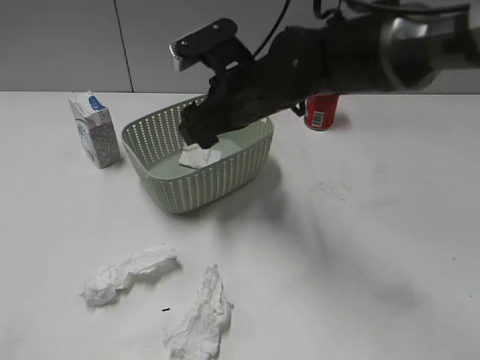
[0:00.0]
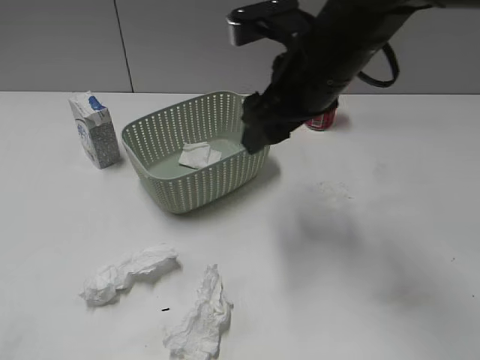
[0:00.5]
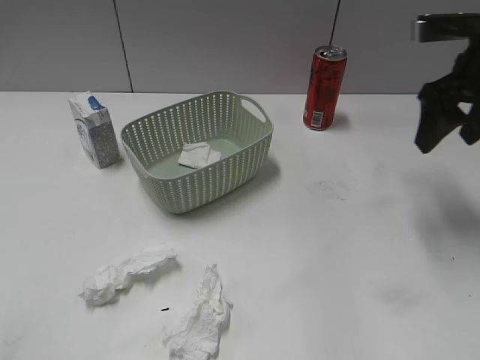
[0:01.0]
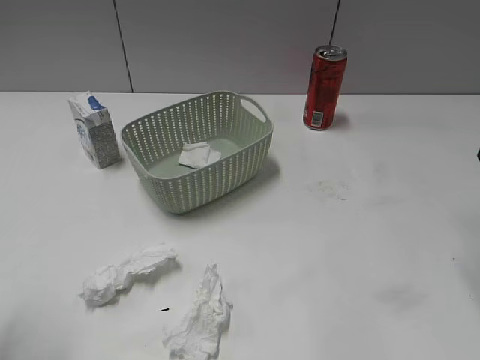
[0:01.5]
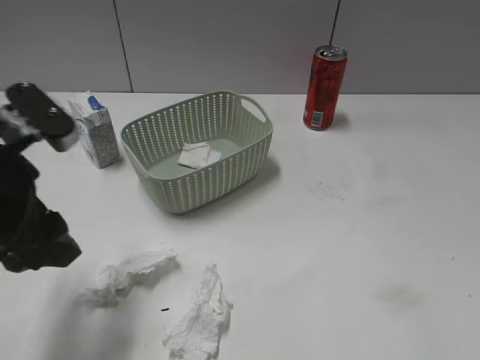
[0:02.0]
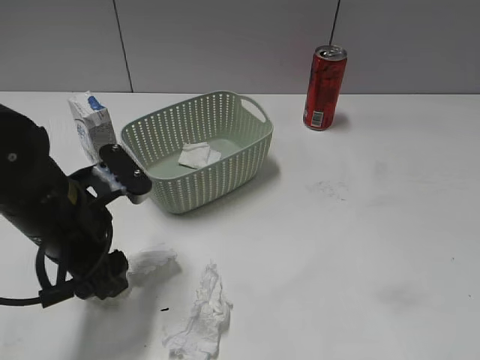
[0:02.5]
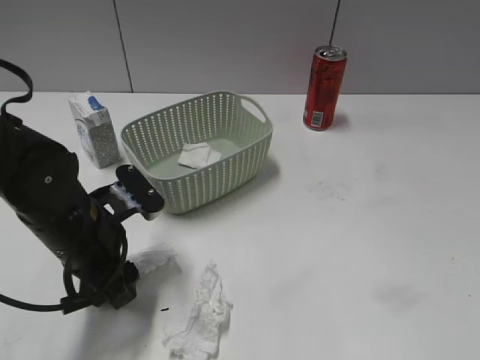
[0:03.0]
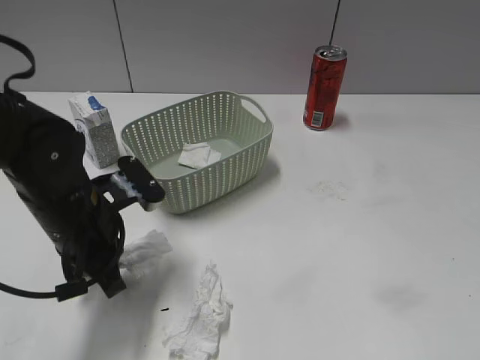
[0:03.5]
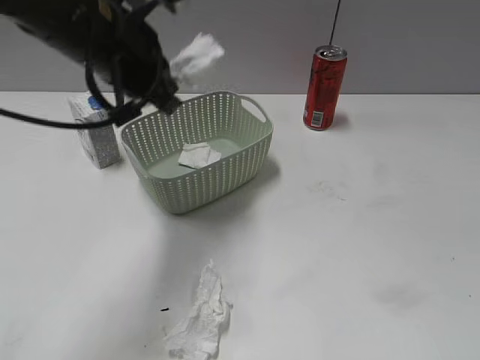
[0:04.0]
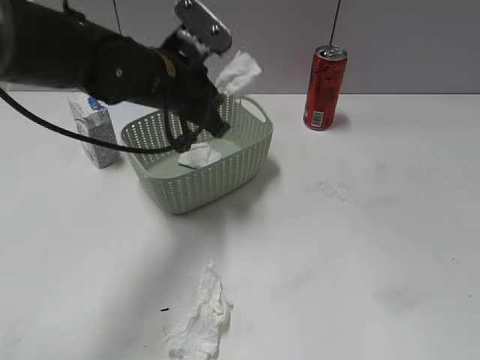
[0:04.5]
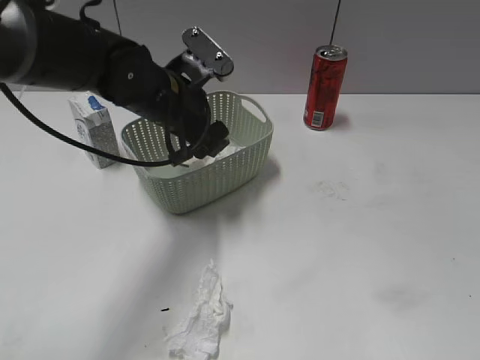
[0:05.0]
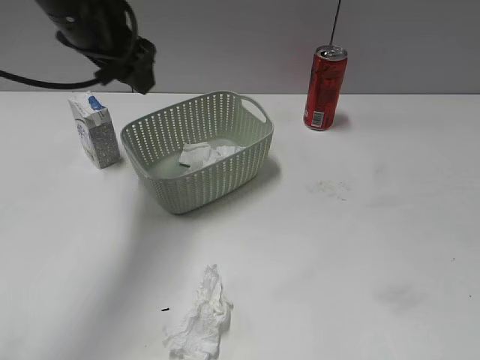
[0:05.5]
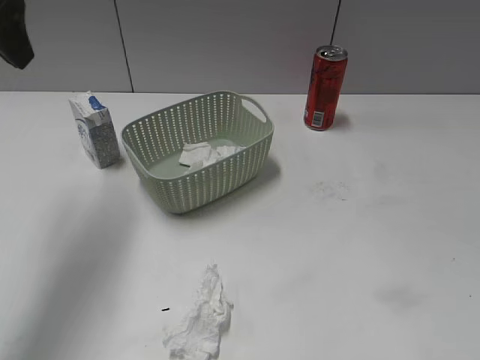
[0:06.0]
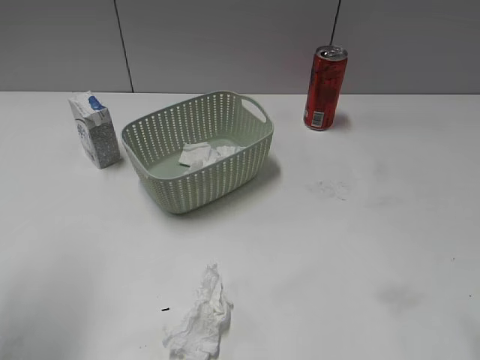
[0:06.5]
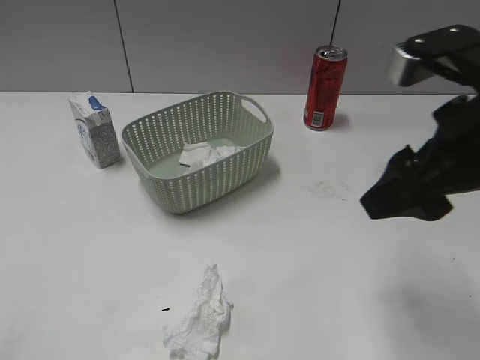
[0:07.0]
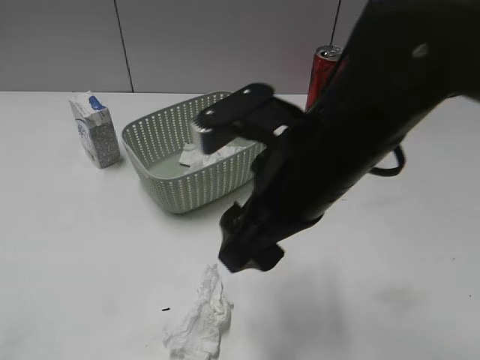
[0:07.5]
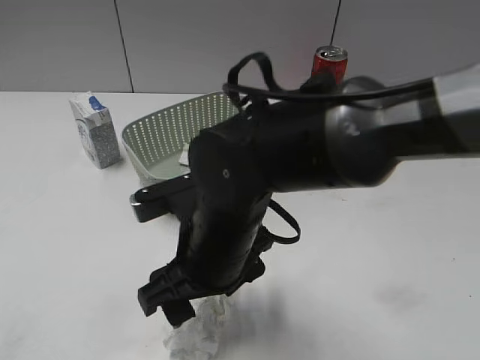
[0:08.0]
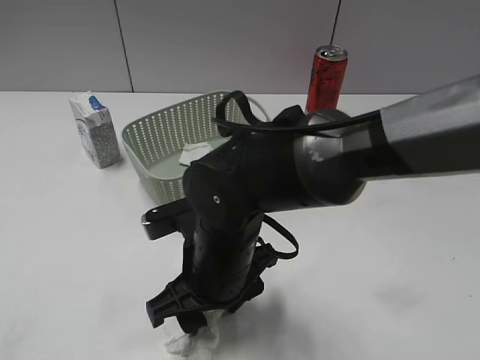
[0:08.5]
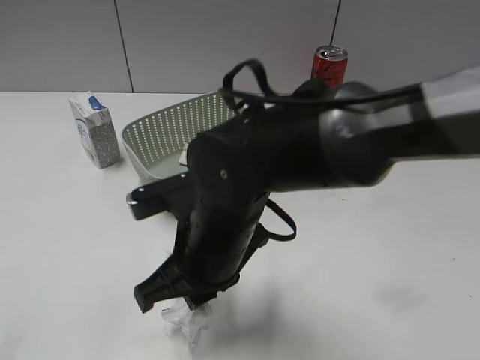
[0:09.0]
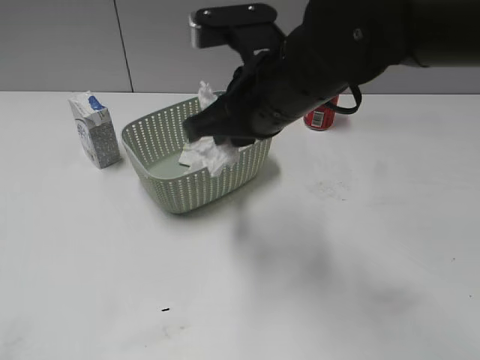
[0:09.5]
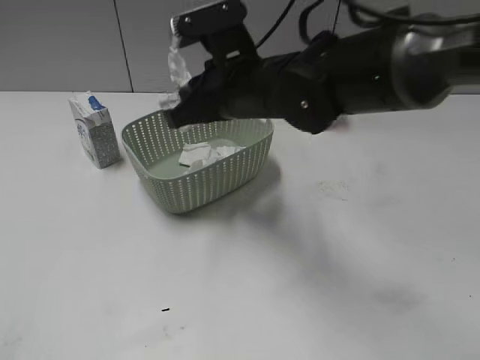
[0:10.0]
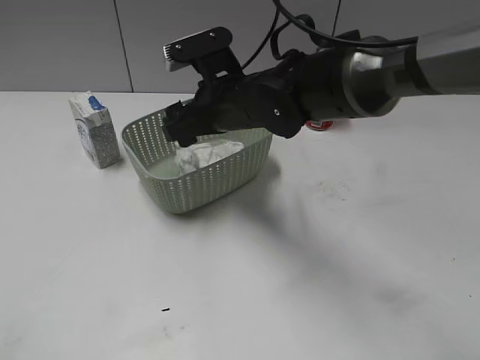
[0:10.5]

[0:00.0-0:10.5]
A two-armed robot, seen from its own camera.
Step, 0:00.0 to 0:03.5: Grasp the waste paper with left gripper.
Step, 0:04.0 to 0:05.0: Place the waste paper in the basket with left gripper.
Step, 0:05.5 to 0:08.5: Grasp the waste paper with right gripper.
0:00.0 to 0:02.0: The right gripper shifts about 35 cm to the right, backward and upward. The left gripper goes about 25 cm forward and to the right.
0:02.0 to 0:04.0: The left gripper goes approximately 15 cm forward and to the right, travels downward and back again, some 10 cm each way, and closes. Meanwhile the right gripper goes some 10 cm backward.
0:04.0 to 0:06.5: The left gripper goes roughly 20 cm to the left, backward and upward, and opens its fingers. Meanwhile the right gripper shifts approximately 10 cm forward.
0:06.5 to 0:08.5: The left gripper shifts roughly 20 cm backward. Meanwhile the right gripper goes some 35 cm to the left and downward.
0:08.5 to 0:10.5: The right gripper goes about 15 cm forward, and closes and opens again.

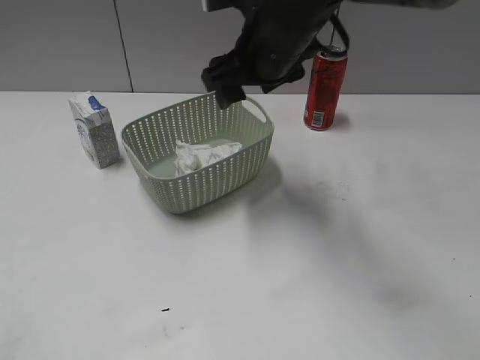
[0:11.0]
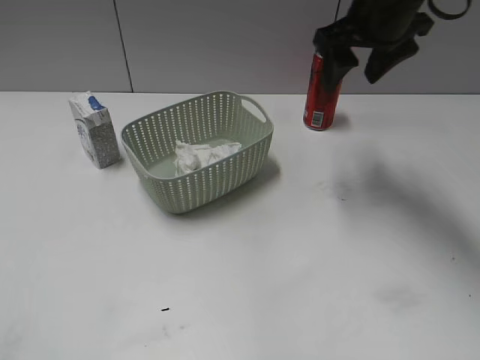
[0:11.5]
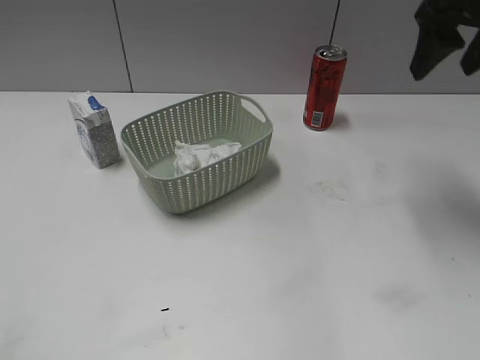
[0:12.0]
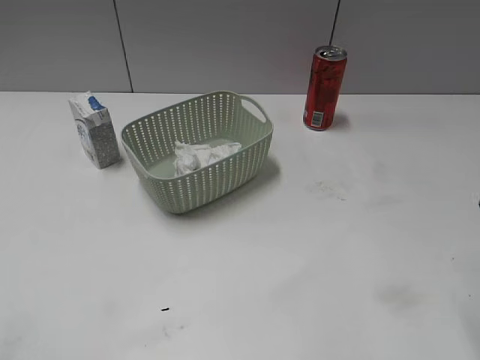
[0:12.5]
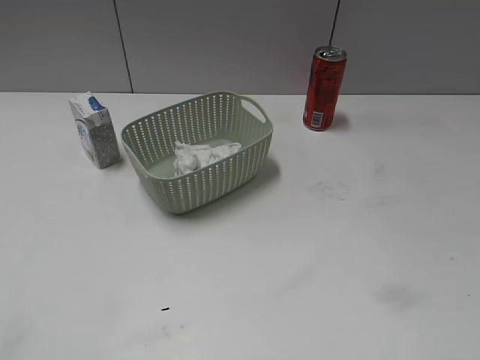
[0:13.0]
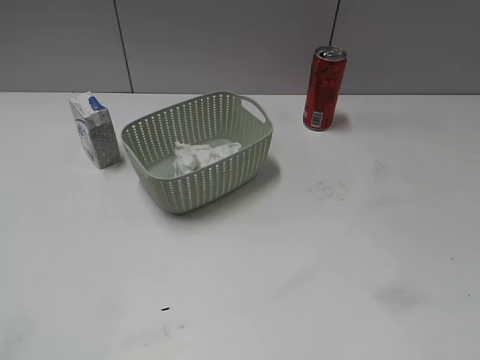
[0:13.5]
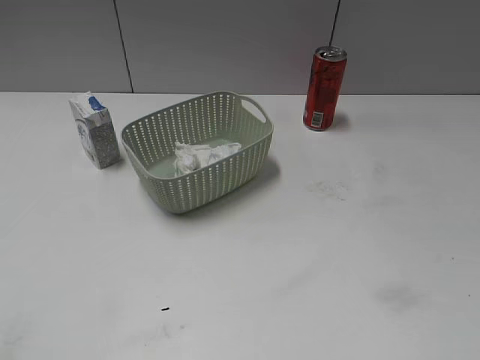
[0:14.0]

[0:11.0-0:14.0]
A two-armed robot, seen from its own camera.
0:11.0 to 0:12.5: The right gripper is displaced to the right and backward by about 30 cm.

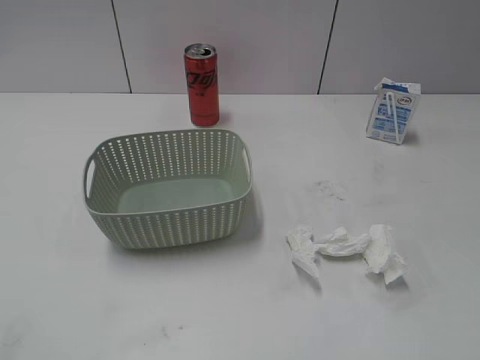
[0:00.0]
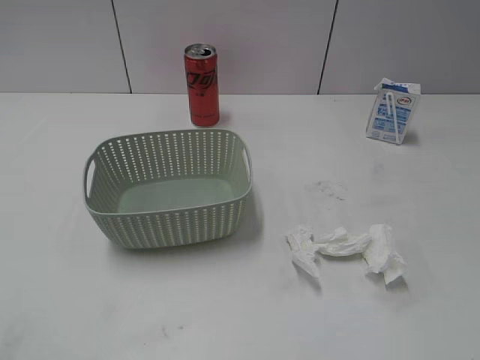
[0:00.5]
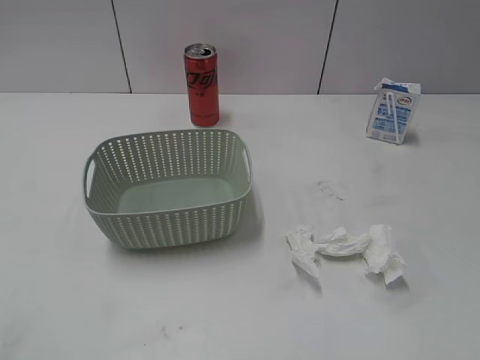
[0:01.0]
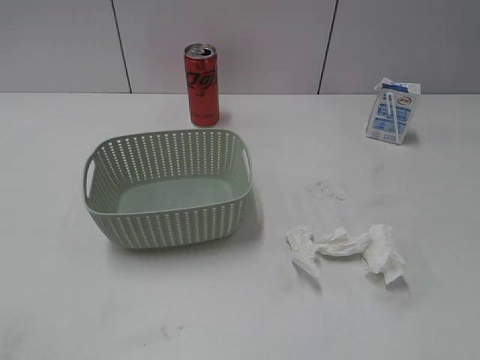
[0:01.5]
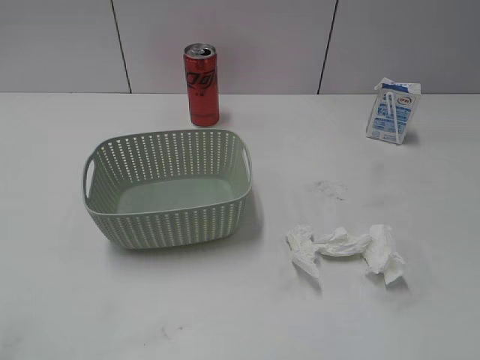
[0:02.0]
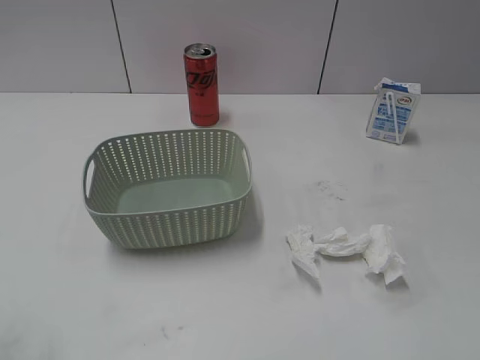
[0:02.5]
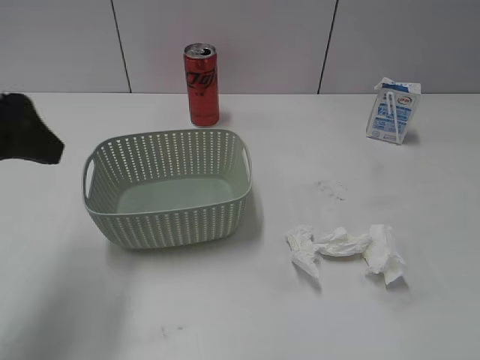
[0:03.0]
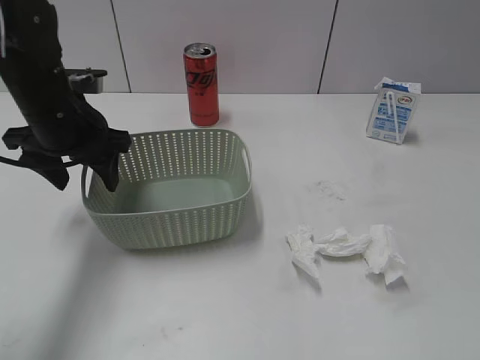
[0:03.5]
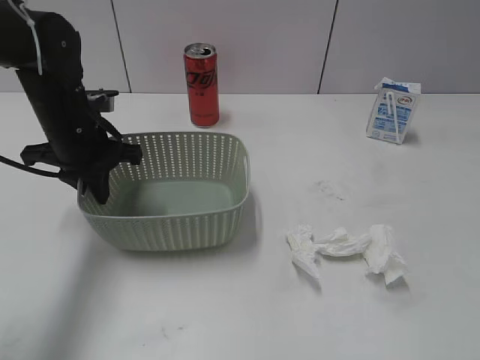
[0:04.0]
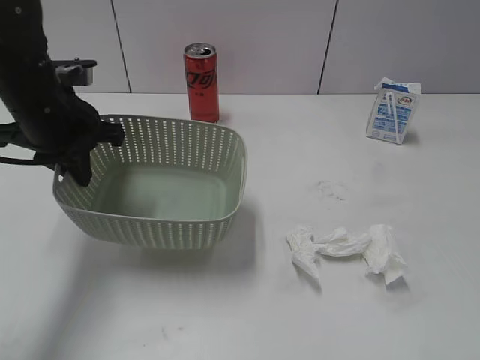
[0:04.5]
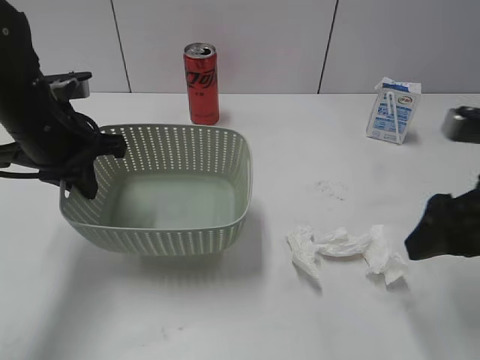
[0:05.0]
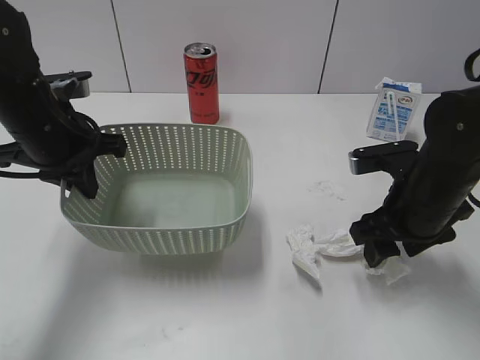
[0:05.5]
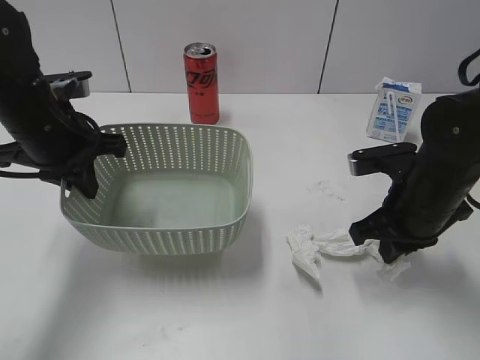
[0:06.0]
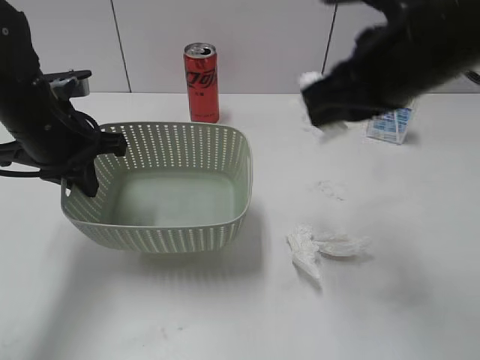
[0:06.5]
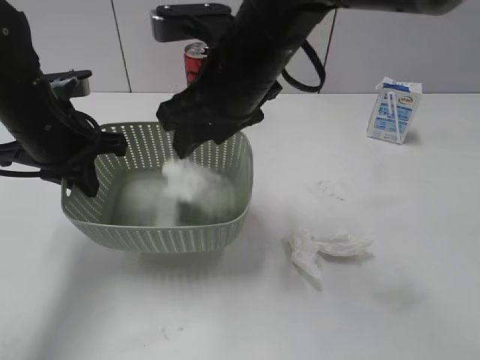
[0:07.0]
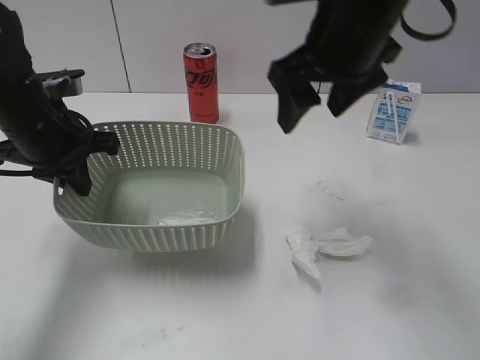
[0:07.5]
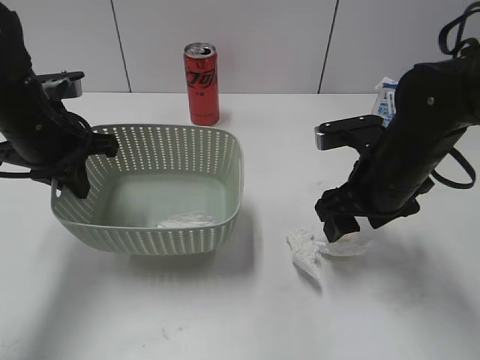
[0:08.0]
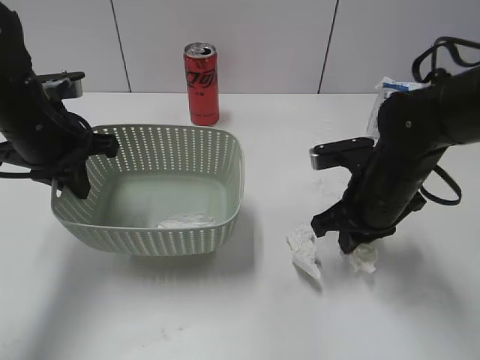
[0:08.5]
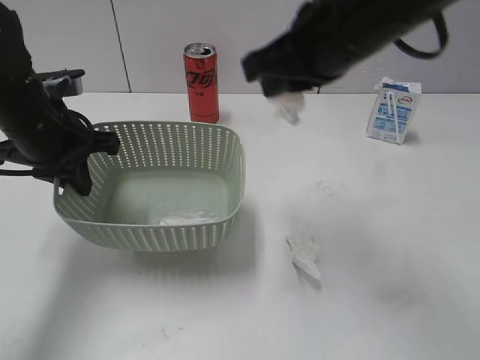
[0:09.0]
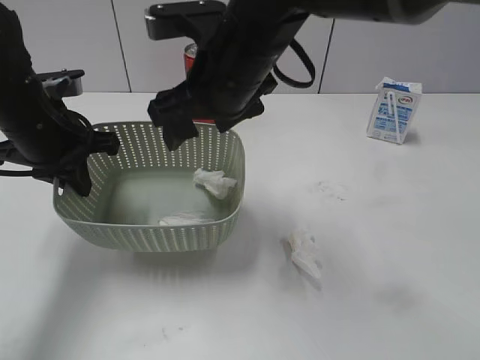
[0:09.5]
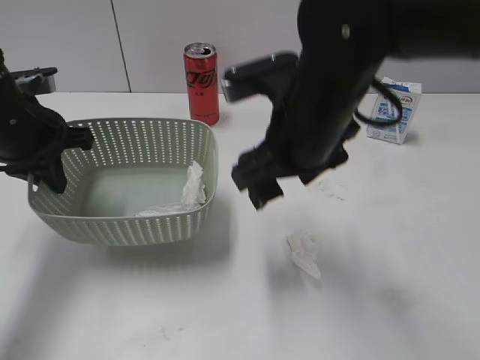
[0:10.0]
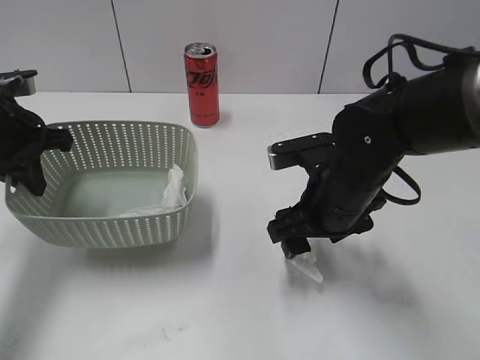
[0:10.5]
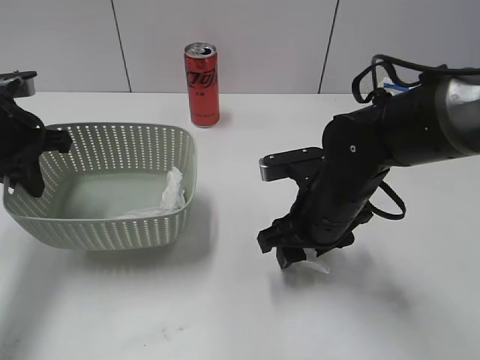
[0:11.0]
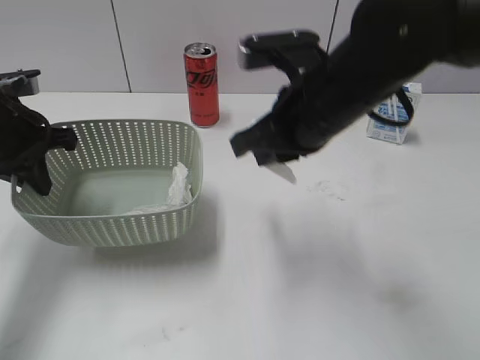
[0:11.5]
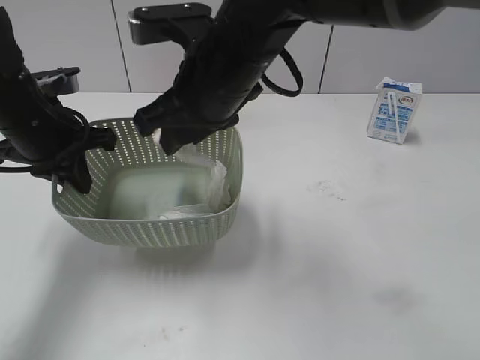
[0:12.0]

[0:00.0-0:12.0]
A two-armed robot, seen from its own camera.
Step, 0:03.0 to 0:04.0: Grasp the basket with left gripper.
Step, 0:05.0 to 0:06.0: Grasp the waste paper with right gripper.
Step, 0:06.5 to 0:07.0: Place the waste paper in the basket with right gripper.
Step, 0:07.5 to 0:08.5: Grasp the waste paper with right gripper.
Step, 0:09.0 to 0:09.5: Place the waste paper in the basket with right gripper.
Step, 0:10.0 to 0:11.0: Grasp the waste paper with right gripper.
0:02.0 to 0:04.0: The left gripper moves forward, roughly 35 cm, and closes.
0:04.0 to 0:06.0: The right gripper is displaced forward and downward by roughly 30 cm, and closes its fingers, while the left gripper ends up about 5 cm from where it was.
0:06.0 to 0:08.0: The right gripper travels to the left and back again, some 20 cm each way, and opens up.
0:08.0 to 0:10.0: The right gripper moves to the left and upward, about 10 cm, and closes and opens again.
0:10.0 to 0:12.0: The right gripper goes approximately 10 cm to the left, moves some 10 cm downward and comes back, and closes its fingers.
